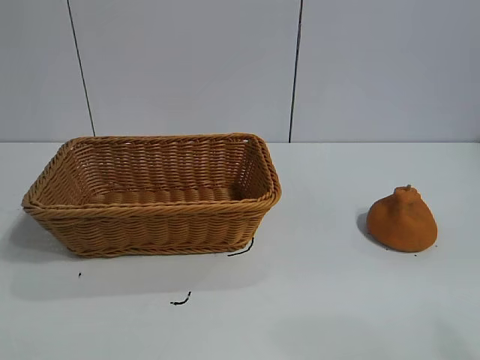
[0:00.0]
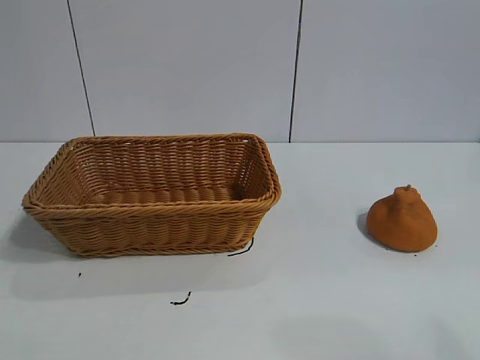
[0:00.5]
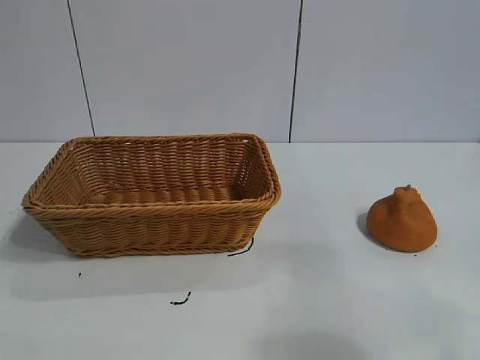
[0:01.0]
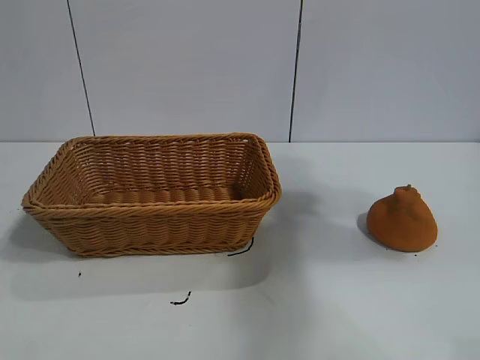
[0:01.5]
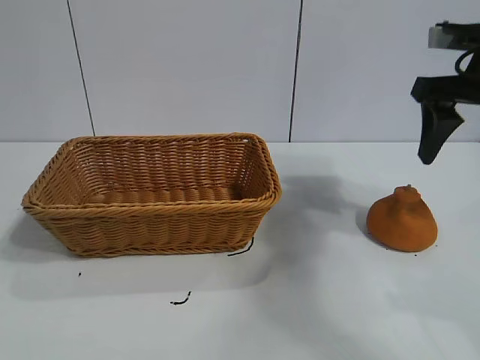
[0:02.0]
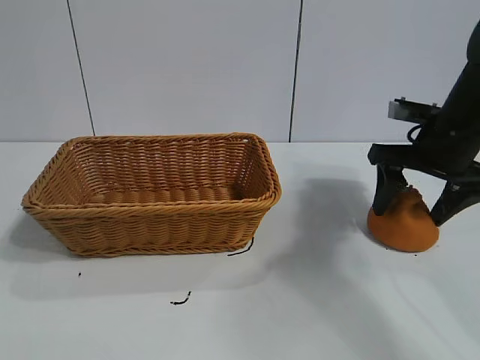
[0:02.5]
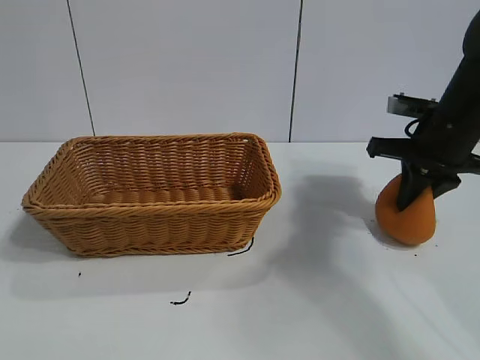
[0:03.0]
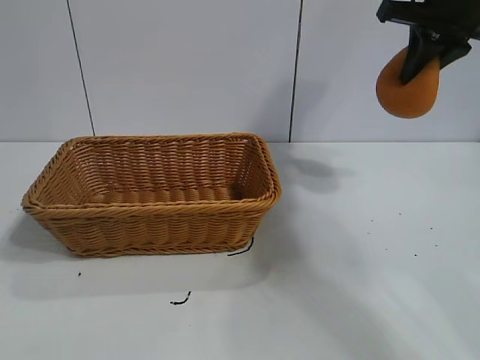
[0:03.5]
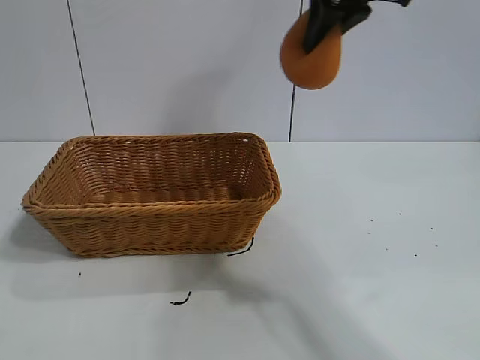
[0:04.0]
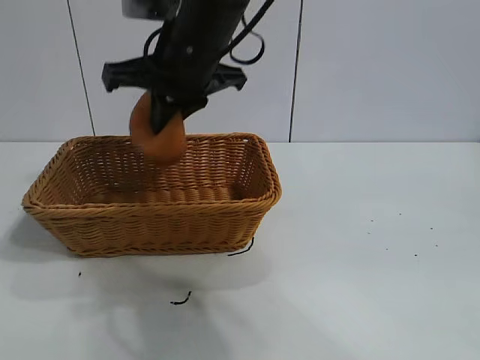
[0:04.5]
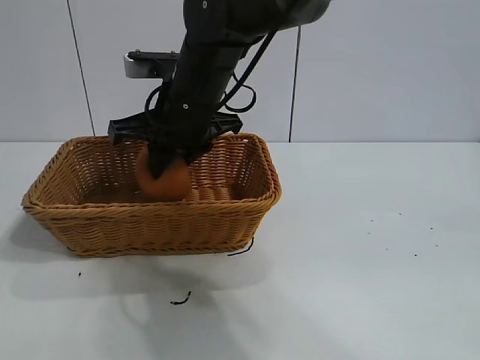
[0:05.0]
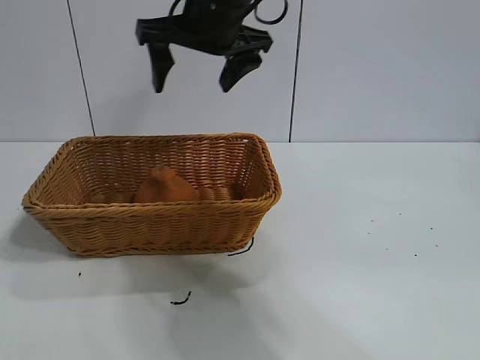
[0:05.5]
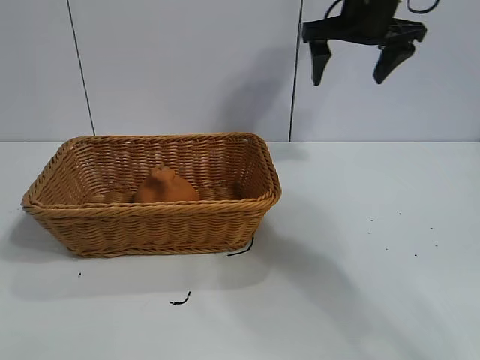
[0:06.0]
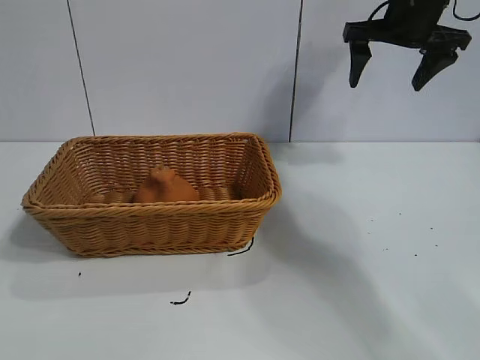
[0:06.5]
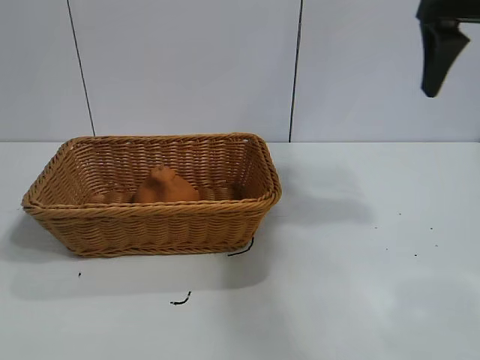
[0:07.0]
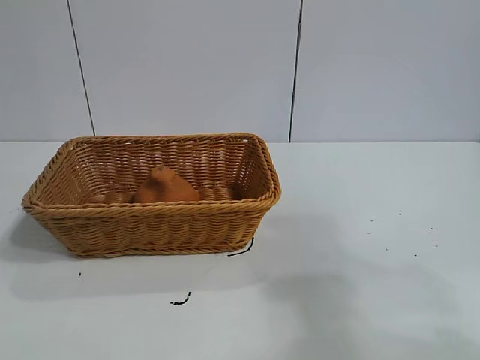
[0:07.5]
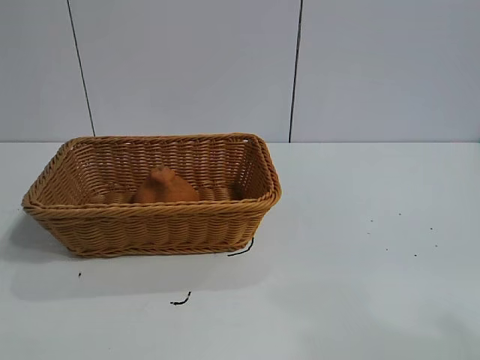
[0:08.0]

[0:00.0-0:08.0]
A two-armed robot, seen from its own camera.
Task of the whole recording: pick up the orange and put it into the basket.
Step, 0:00.0 to 0:03.0: Grasp the orange with right gripper.
Step, 0:03.5 to 0:05.0: Place the orange in the basket with right gripper.
